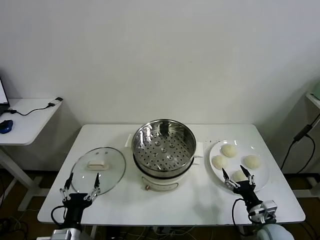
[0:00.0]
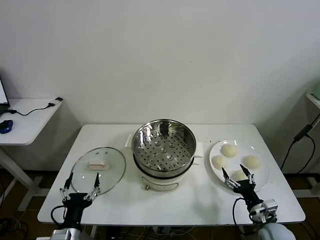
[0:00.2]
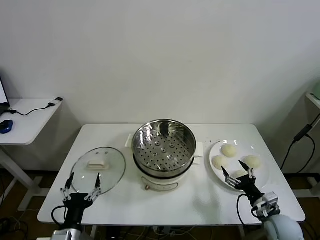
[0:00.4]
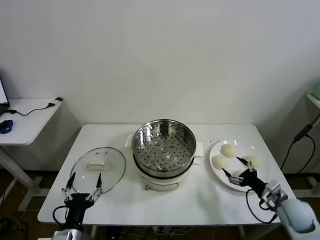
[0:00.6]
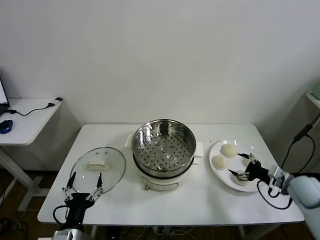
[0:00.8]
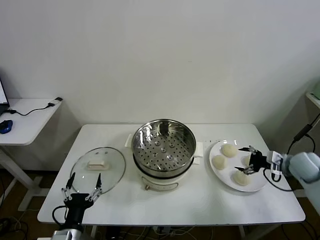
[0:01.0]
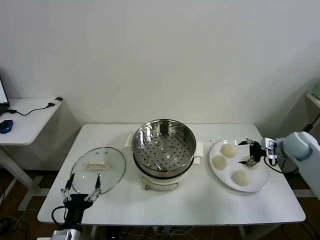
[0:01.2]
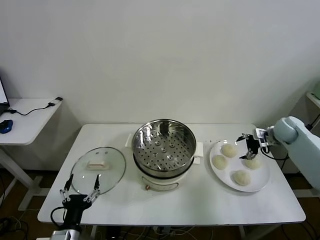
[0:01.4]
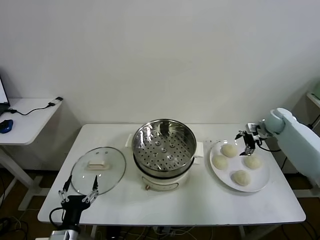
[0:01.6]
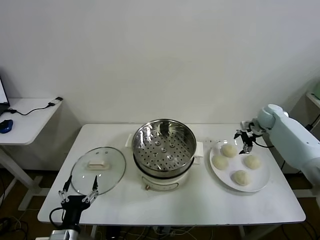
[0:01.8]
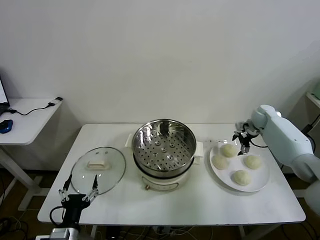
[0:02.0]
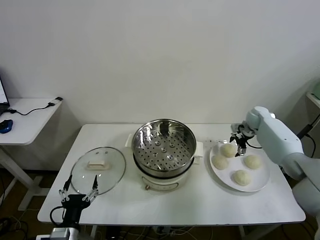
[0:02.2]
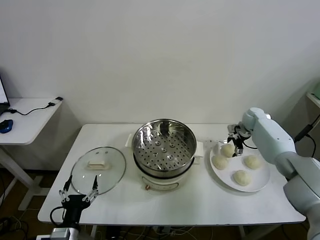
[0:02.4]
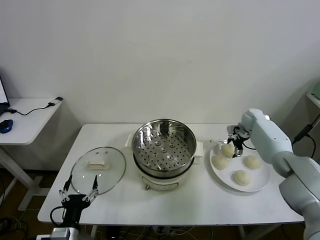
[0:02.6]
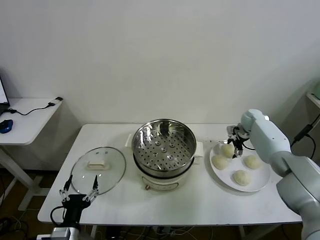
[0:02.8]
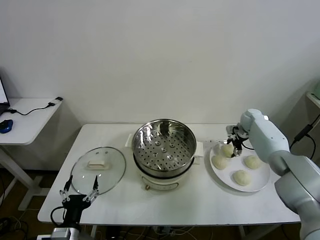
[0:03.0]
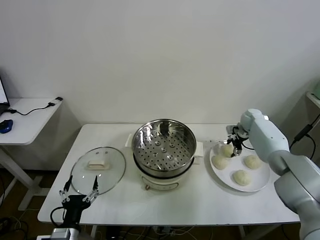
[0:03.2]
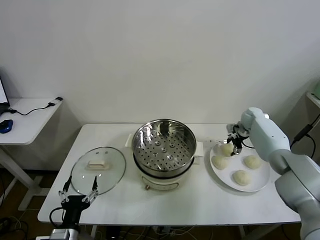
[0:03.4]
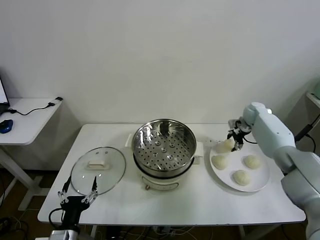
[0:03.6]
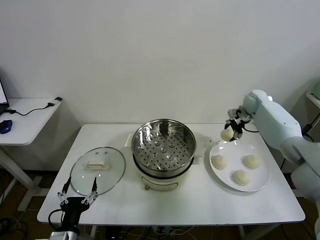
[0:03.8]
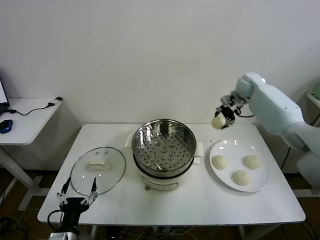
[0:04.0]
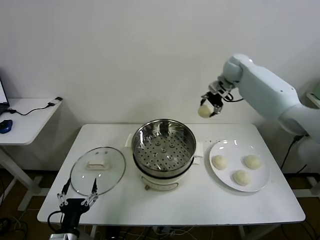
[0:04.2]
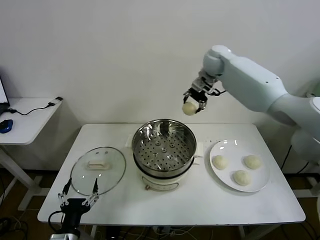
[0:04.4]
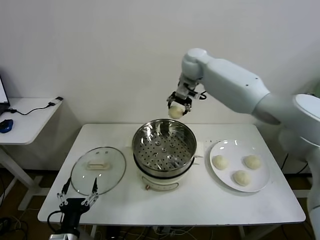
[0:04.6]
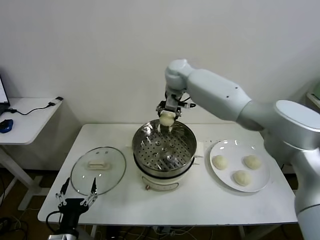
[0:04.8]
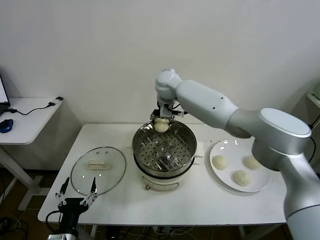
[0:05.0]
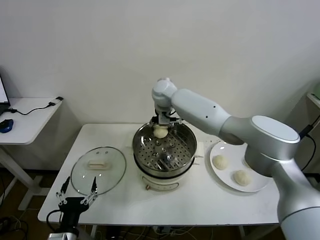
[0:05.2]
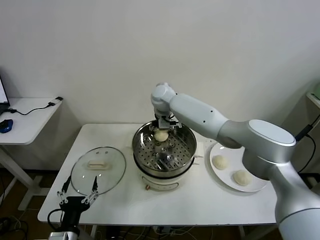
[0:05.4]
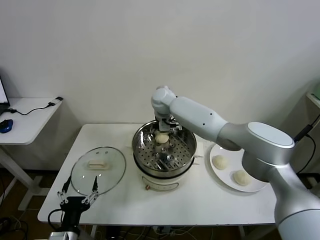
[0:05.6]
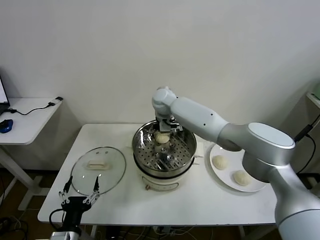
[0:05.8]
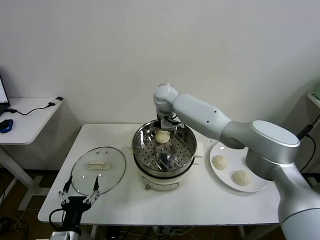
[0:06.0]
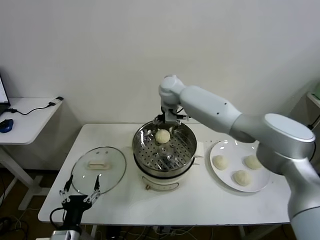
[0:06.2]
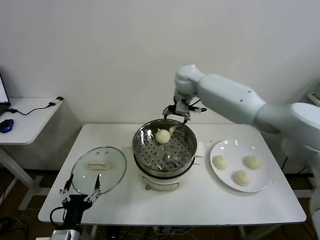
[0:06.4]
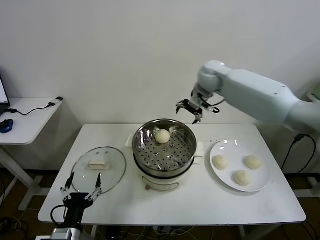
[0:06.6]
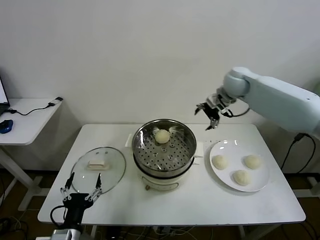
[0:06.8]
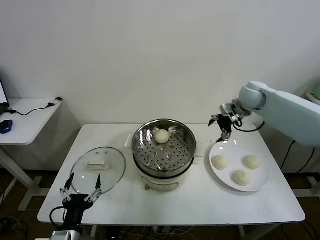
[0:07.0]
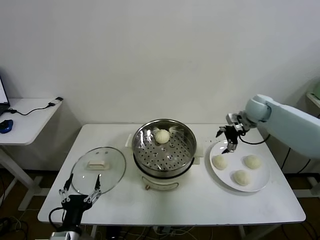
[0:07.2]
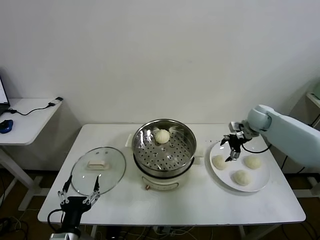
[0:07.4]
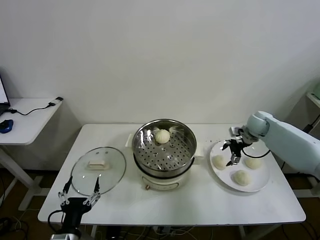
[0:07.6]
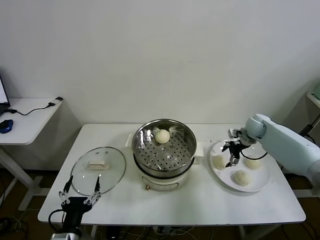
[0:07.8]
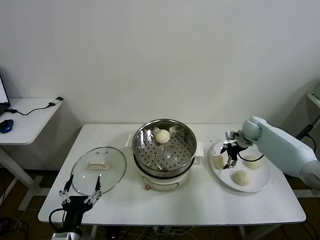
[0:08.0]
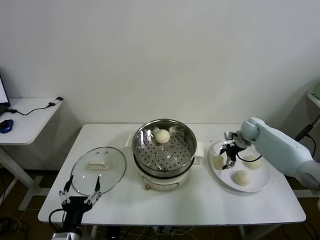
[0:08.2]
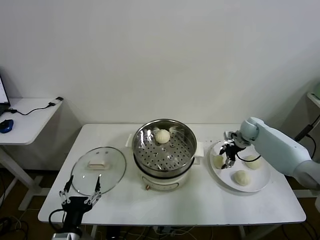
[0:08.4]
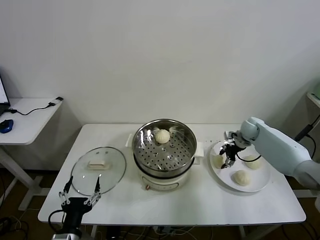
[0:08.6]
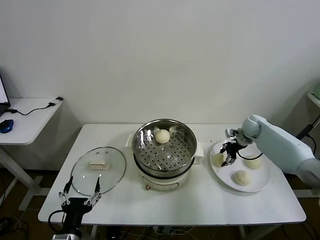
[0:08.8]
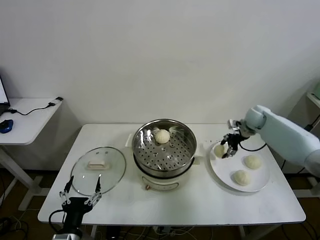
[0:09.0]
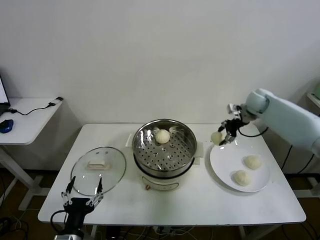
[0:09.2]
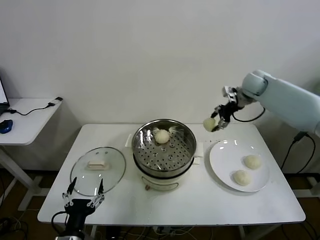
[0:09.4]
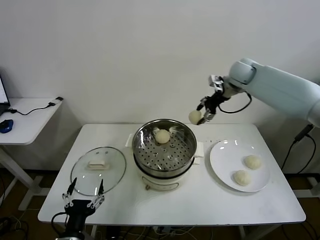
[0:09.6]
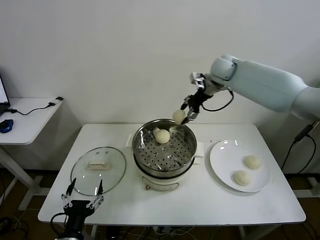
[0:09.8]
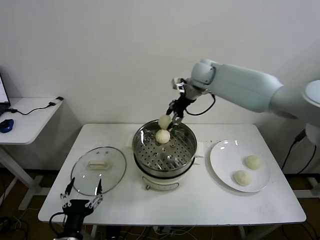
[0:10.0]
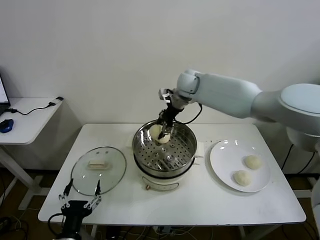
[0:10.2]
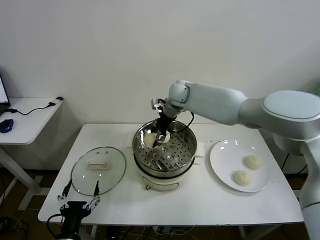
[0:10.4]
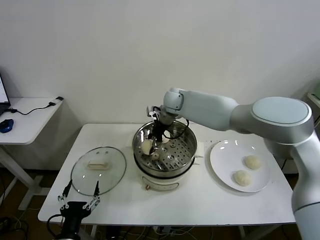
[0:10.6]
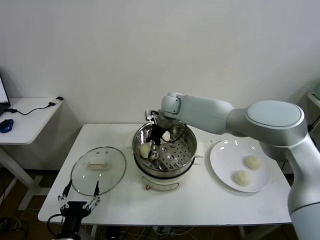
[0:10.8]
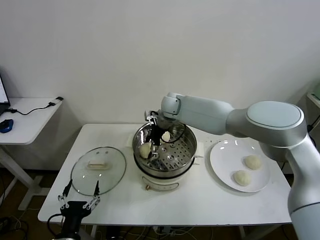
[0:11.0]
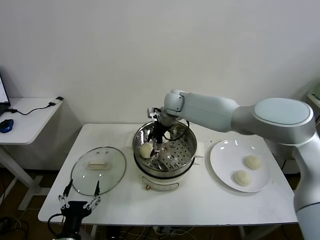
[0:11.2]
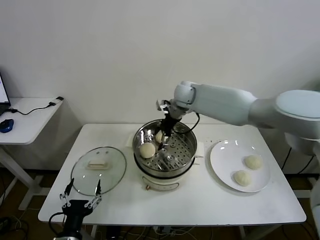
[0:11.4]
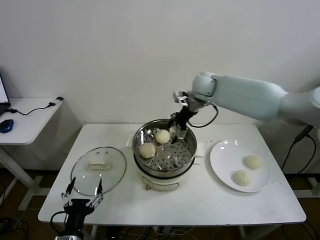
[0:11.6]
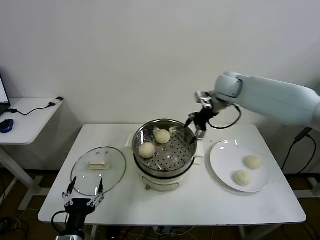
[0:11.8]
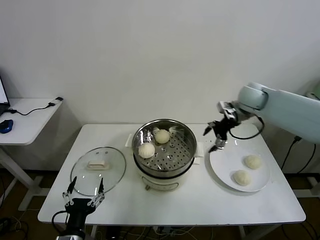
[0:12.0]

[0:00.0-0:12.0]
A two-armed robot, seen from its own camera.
Task of the whole recording: take steamed baozi put them in steamer then cover it.
Step, 0:00.0 to 0:03.4: Grasp the baozi in the plate with right gripper.
Step, 0:03.6 to 0:06.2: Place the baozi on the steamer with right gripper.
Step, 0:06.4 to 0:08.6: Grasp the baozi in the plate with right gripper.
Step, 0:08.8 to 0:11.4: Place the baozi on the steamer with right gripper.
0:01.6 to 0:03.0: The right gripper is displaced downward by approximately 5 cm, and closes its fingers.
0:03.0 to 0:04.4: The right gripper shifts roughly 35 cm upward and to the left.
0:04.4 to 0:06.0: The right gripper moves to the left and downward, approximately 15 cm, and opens up.
0:06.0 to 0:07.6: The right gripper shifts approximately 35 cm to the right.
0:07.6 to 0:09.0: The right gripper changes place by roughly 5 cm, and closes its fingers.
0:09.0 to 0:10.4: The right gripper heads to the left, covering some 30 cm.
0:10.4 to 0:12.0: The right gripper goes about 25 cm to the right, and opens its fingers.

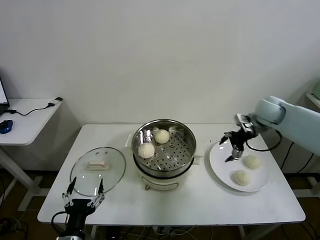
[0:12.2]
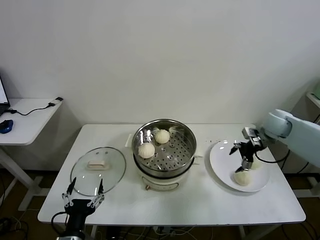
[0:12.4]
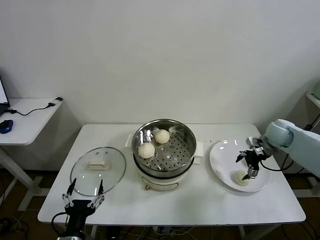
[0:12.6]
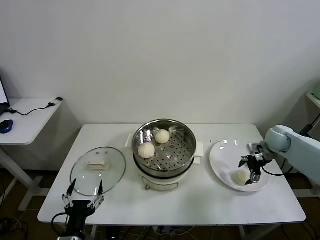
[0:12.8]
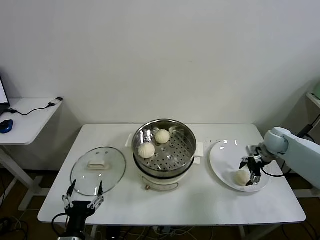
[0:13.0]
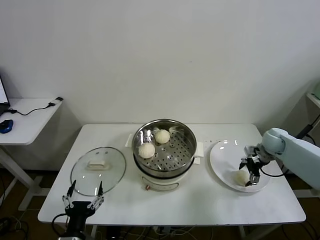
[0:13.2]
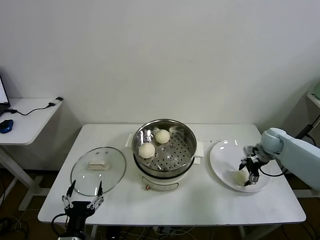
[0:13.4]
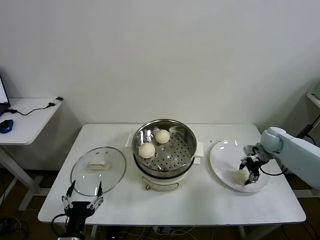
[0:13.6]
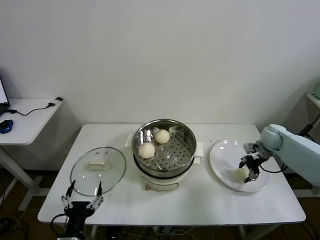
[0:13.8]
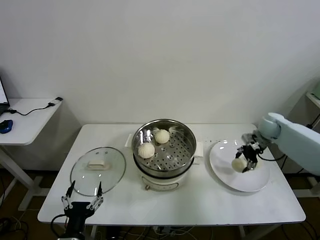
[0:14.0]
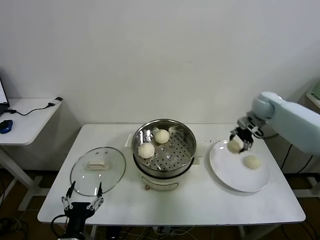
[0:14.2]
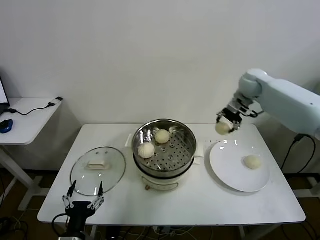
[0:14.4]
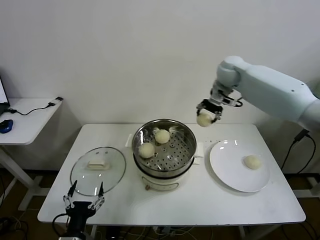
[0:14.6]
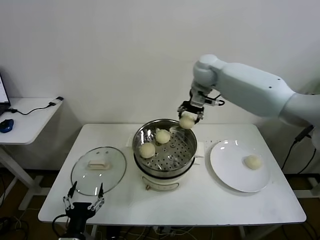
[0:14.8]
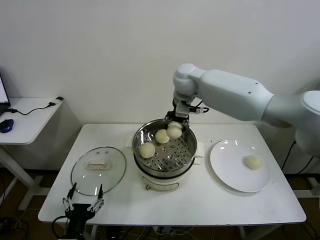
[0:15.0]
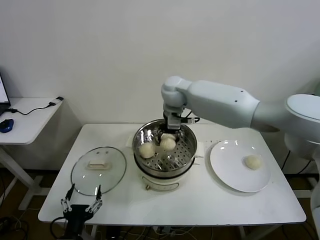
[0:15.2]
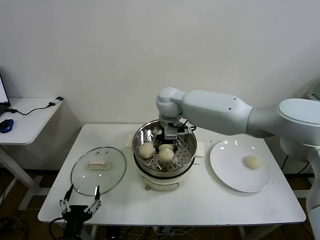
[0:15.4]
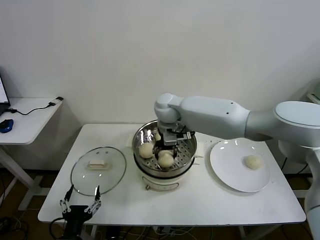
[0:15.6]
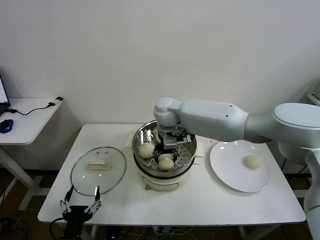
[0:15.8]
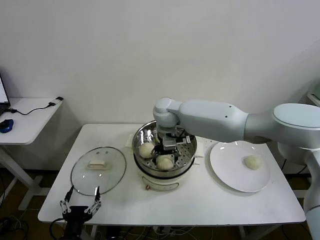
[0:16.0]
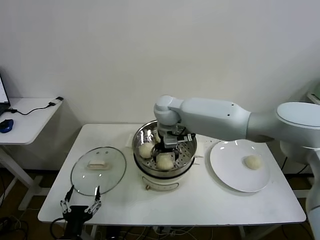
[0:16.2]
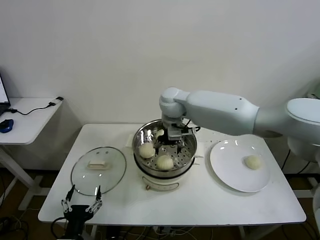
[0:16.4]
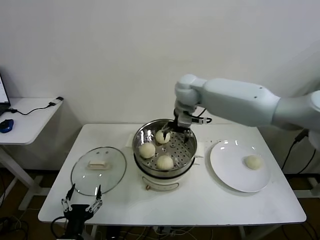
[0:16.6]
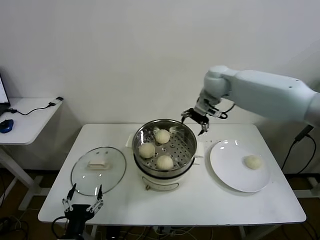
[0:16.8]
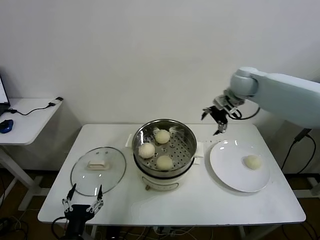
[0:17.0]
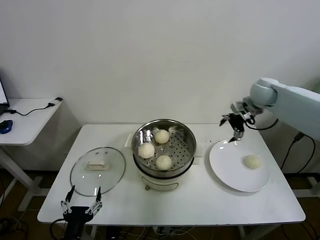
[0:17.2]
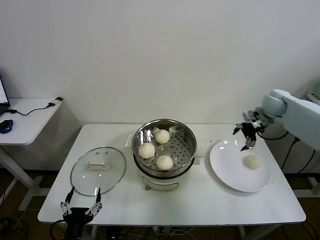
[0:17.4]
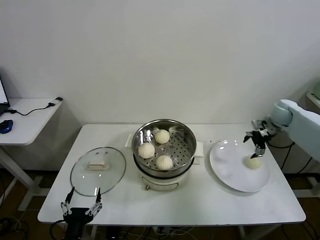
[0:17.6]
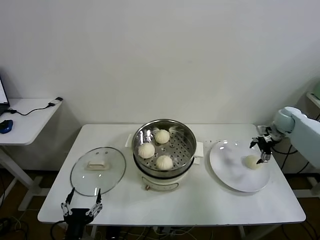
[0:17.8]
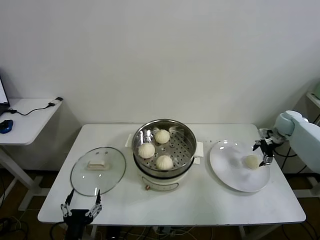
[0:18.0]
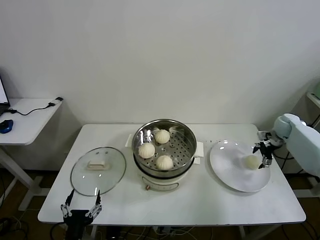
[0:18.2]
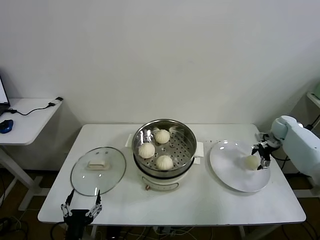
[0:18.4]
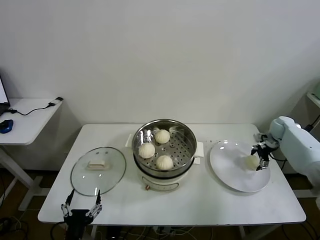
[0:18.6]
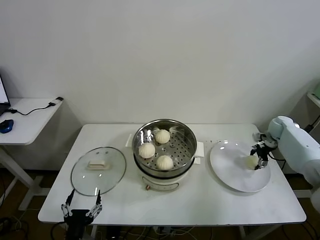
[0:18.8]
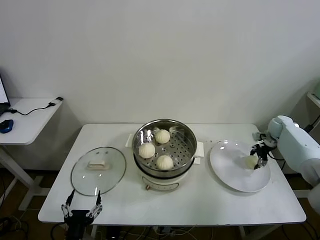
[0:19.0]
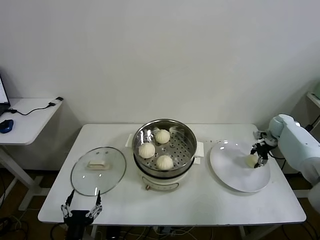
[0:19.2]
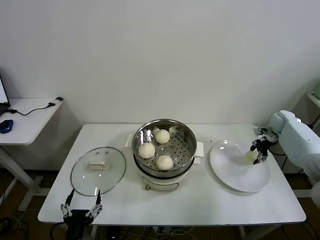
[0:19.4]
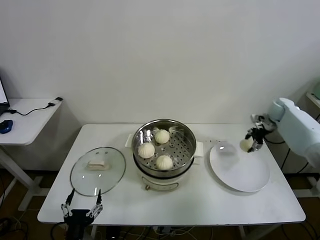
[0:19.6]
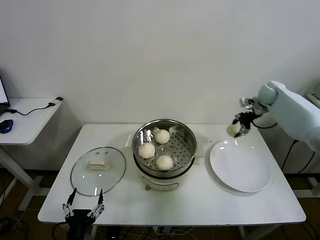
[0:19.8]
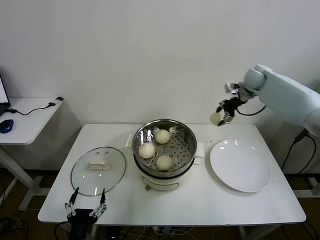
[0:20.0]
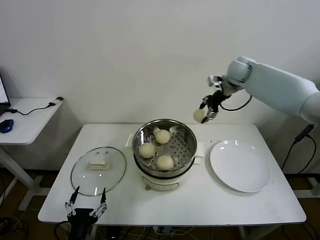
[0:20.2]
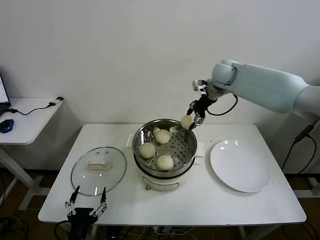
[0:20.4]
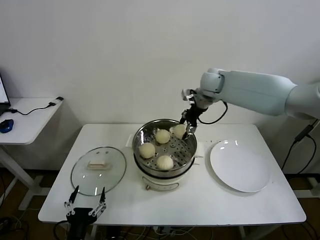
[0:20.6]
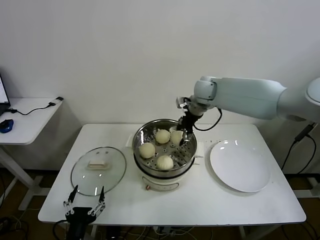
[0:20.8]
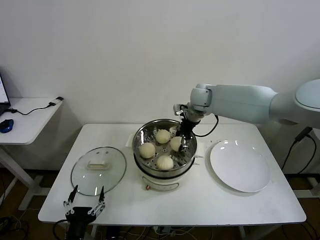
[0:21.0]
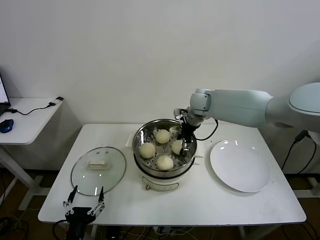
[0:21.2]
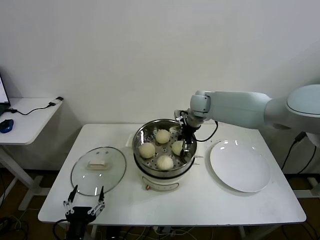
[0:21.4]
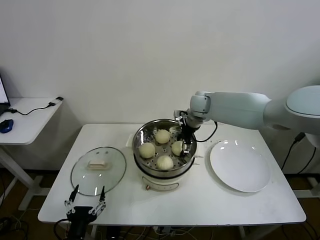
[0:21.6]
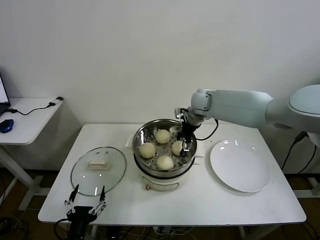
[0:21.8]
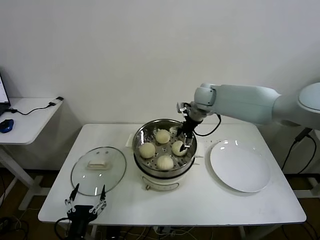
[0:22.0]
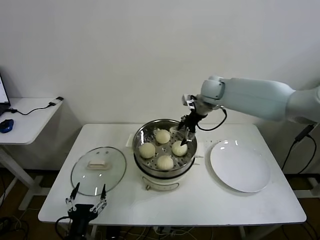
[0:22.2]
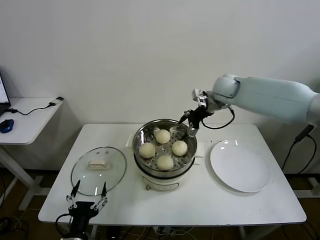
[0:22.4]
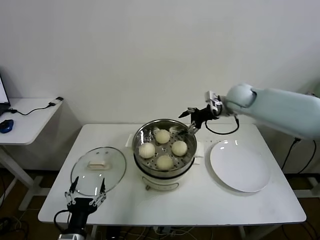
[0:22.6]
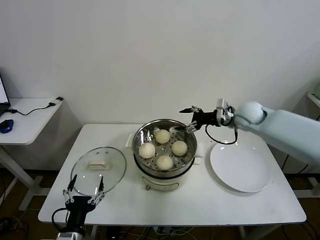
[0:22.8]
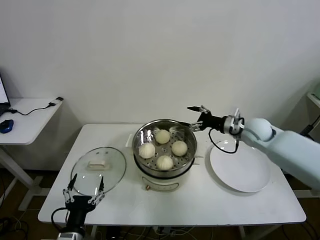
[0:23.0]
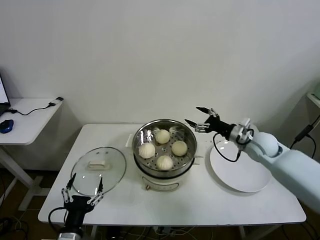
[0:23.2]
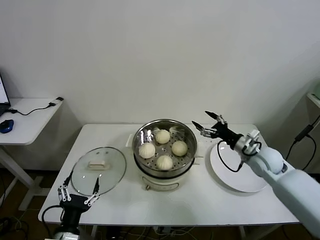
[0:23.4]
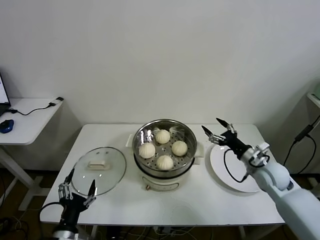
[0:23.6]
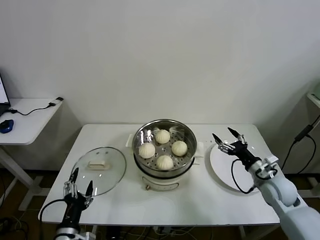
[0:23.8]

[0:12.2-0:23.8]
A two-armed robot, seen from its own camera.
Task of the whole recording: take steamed baozi put them in steamer then cover it.
Step, 0:12.2 to 0:13.6: Grasp the baozi in the plate with right gripper.
Step, 0:14.0 to 0:16.4: Place the baozi on the steamer with right gripper.
Step, 0:16.6 to 0:19.2: Grasp the baozi in the plate with right gripper.
Step, 0:19.4 to 0:22.0: Place the baozi on the steamer with right gripper.
0:12.2 to 0:13.6: The right gripper heads downward and to the right, covering about 15 cm, and closes.
0:13.6 to 0:15.0: The right gripper is displaced to the left and upward by roughly 40 cm.
0:15.0 to 0:16.6: The right gripper opens its fingers.
0:16.6 to 0:18.0: The right gripper travels to the right and downward by about 40 cm.
0:18.0 to 0:19.4: The right gripper closes its fingers.
0:19.4 to 0:21.0: The right gripper shifts roughly 35 cm to the left.
0:21.0 to 0:22.4: The right gripper shifts some 5 cm to the right, and opens up.
0:22.4 to 0:23.8: The right gripper shifts approximately 35 cm backward, downward and to the right.
